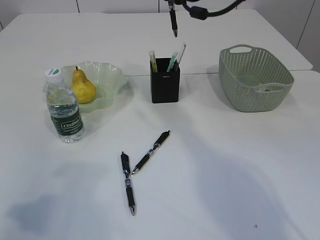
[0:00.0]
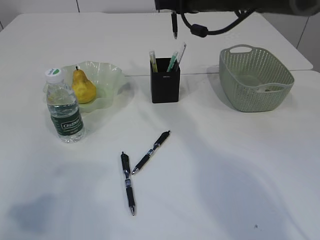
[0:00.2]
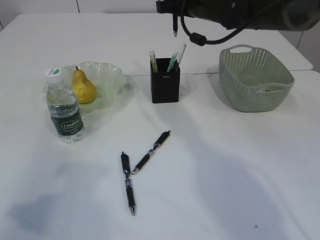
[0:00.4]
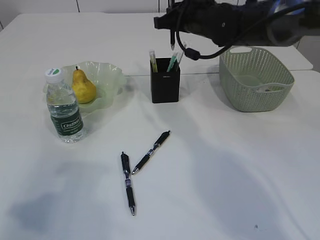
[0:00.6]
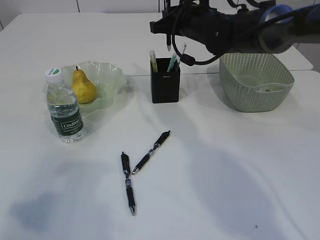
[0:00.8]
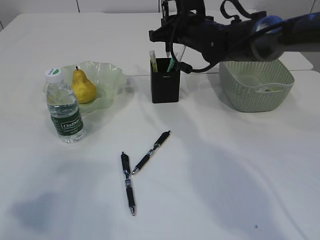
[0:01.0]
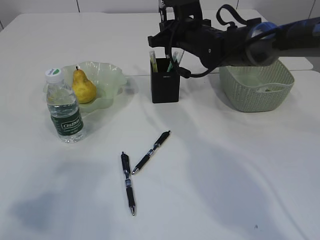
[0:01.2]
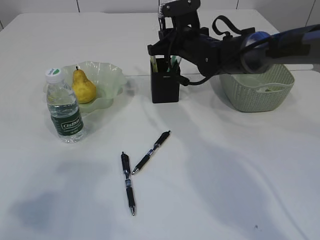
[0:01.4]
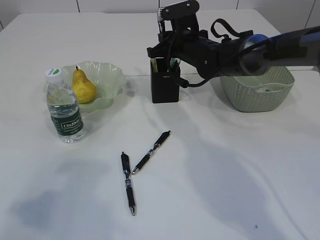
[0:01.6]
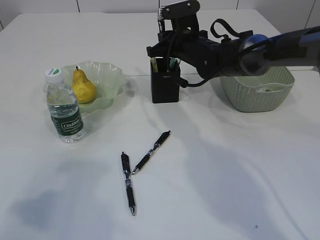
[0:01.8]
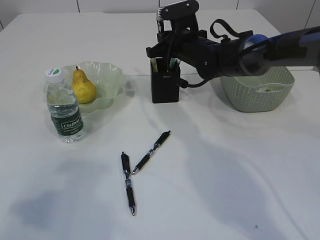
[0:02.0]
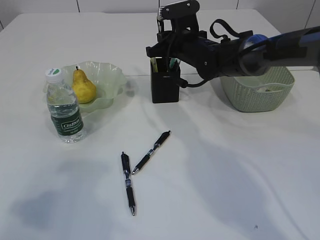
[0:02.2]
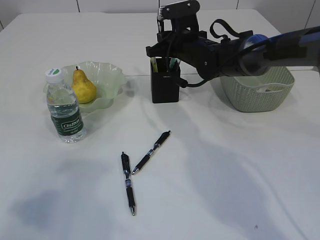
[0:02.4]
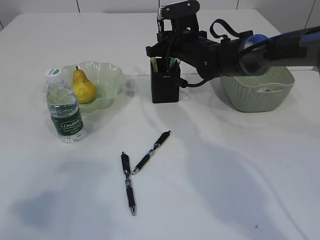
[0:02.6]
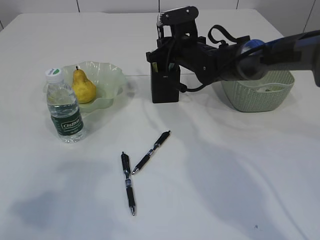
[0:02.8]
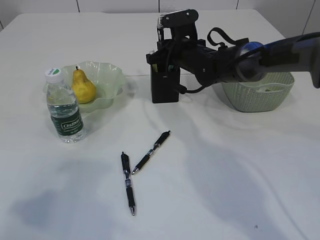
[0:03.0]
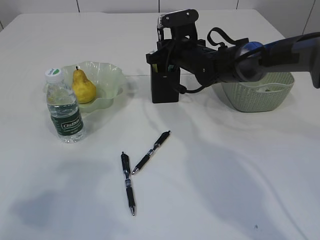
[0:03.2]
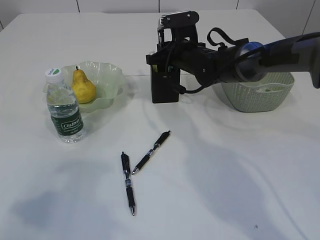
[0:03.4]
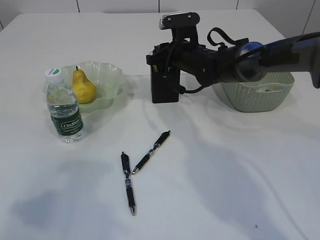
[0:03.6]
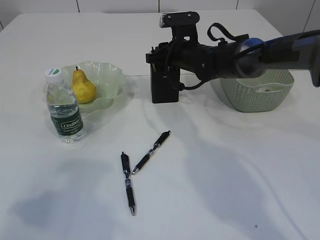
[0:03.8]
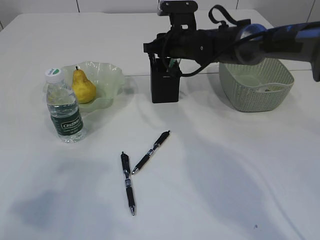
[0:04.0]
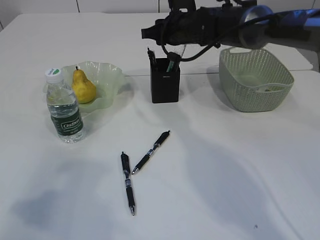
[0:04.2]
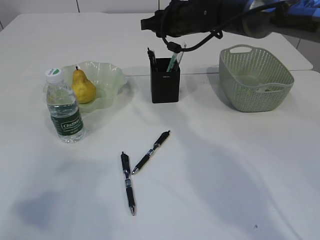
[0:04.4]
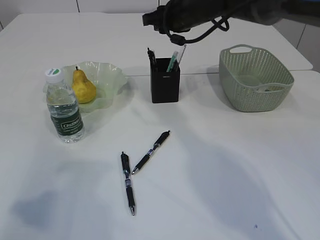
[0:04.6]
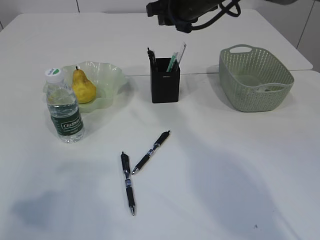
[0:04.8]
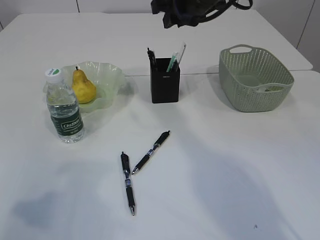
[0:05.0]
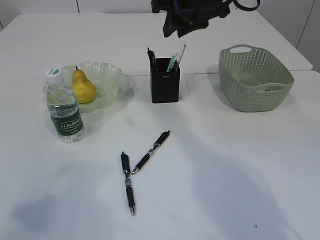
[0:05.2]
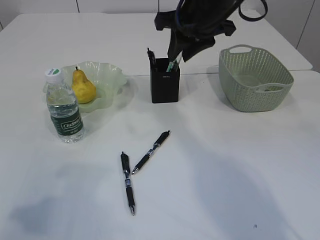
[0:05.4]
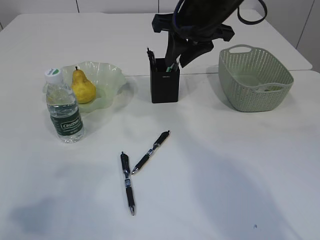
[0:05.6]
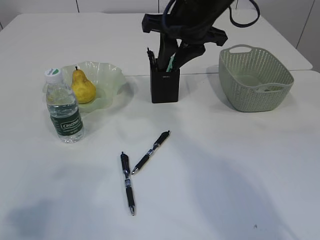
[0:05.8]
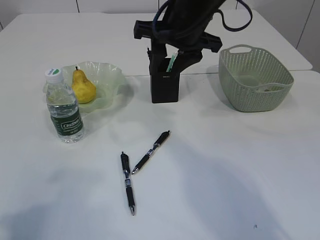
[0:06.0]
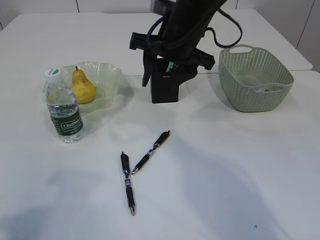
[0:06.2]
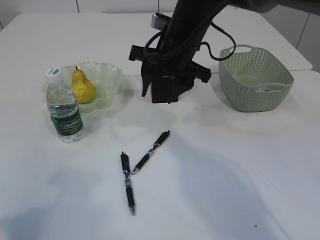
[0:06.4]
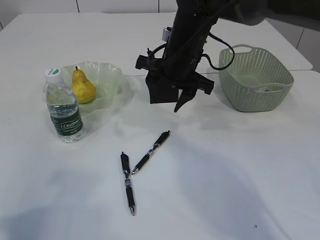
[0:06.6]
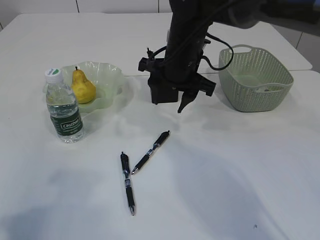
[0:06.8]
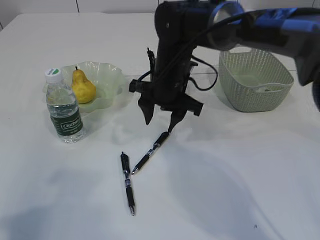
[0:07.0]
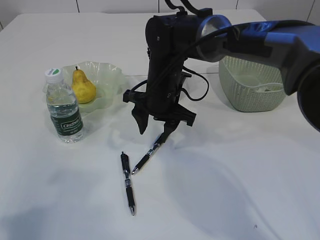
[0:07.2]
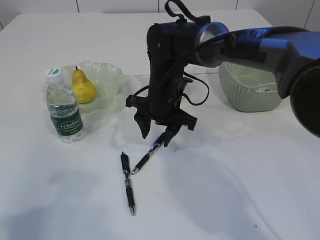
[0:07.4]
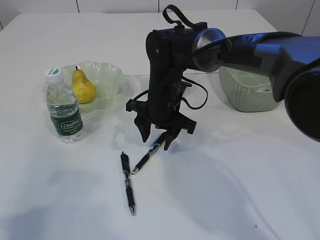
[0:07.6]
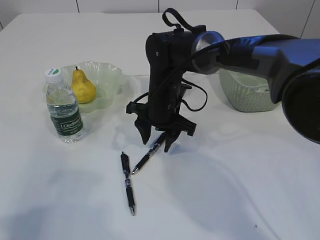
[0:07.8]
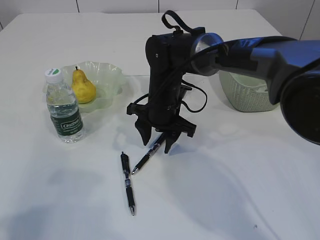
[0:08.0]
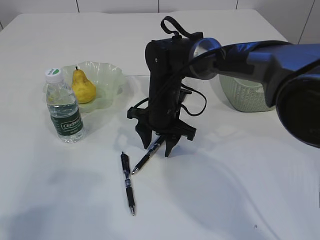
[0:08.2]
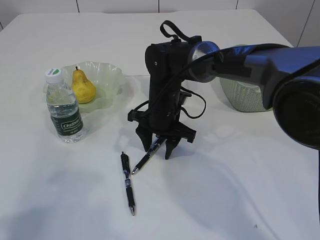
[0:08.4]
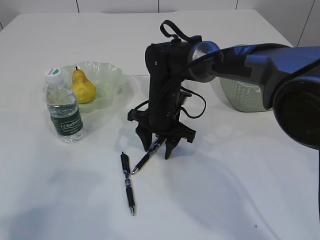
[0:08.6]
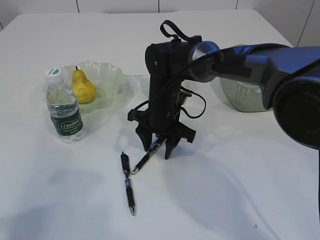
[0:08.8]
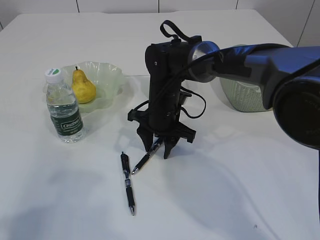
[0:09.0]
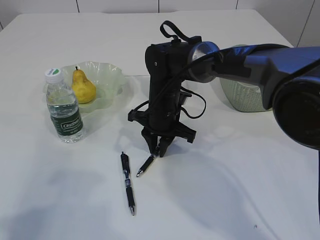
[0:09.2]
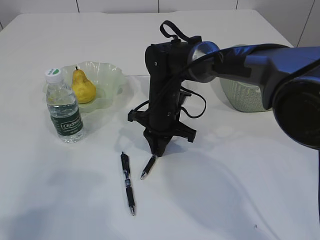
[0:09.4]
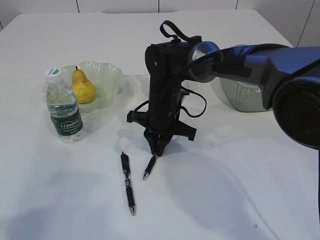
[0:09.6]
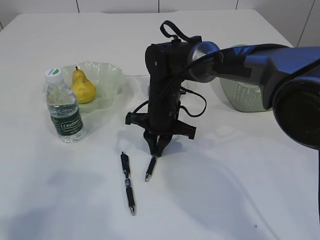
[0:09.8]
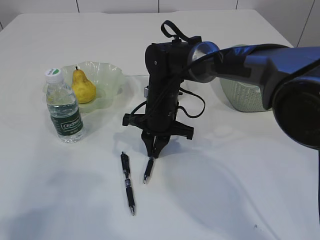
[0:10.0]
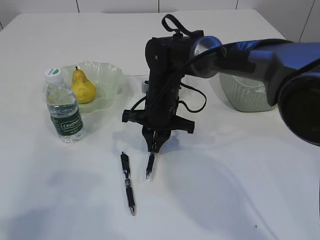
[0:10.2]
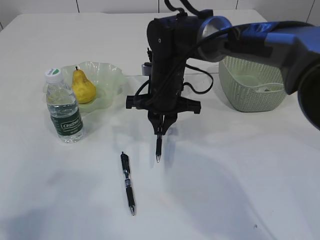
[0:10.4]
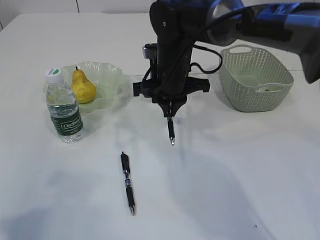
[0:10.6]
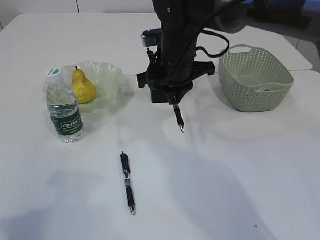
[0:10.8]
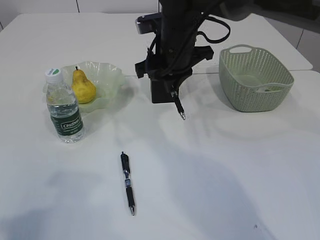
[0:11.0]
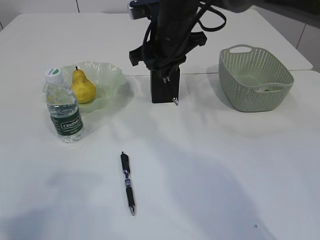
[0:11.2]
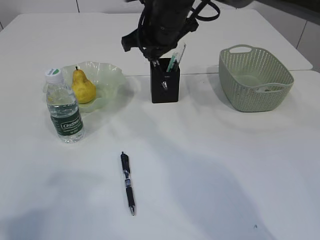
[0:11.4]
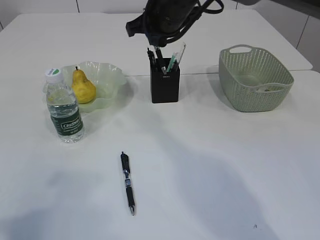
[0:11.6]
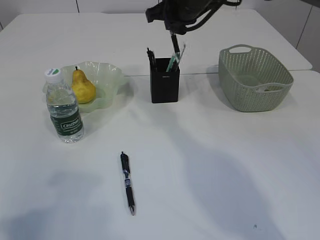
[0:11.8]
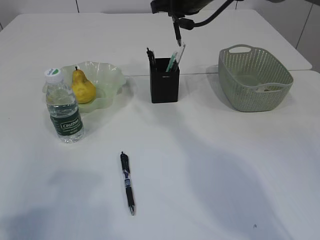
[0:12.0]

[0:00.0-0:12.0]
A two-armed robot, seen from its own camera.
Step, 0:00.0 to 0:04.2: Place the pen into the pen holder.
Step, 0:04.4 to 0:10.6: Pick up the pen with right arm.
0:00.0 to 0:01.6: The right gripper moves downward, roughly 15 cm.
0:01.6 to 0:03.0: The grippers make only small movements.
0:03.0 to 0:04.4: The right gripper shifts roughly 5 cm upward.
0:04.4 to 0:06.0: The right gripper is displaced backward and upward by about 15 cm.
0:06.0 to 0:07.6: The right gripper goes some 15 cm downward.
0:07.6 to 0:09.0: The grippers make only small movements.
0:09.0 to 0:10.4: The right gripper closes up.
0:10.4 to 0:12.0: The right gripper travels upward, forward and to the right by roughly 20 cm.

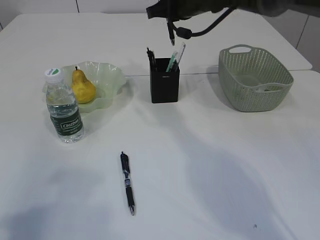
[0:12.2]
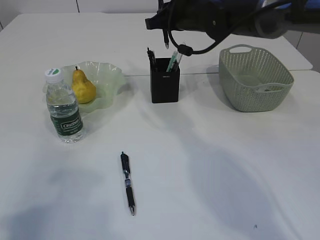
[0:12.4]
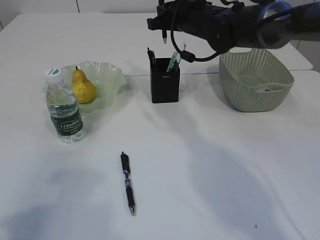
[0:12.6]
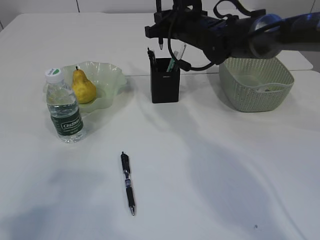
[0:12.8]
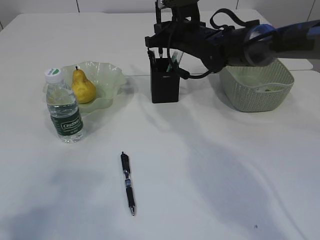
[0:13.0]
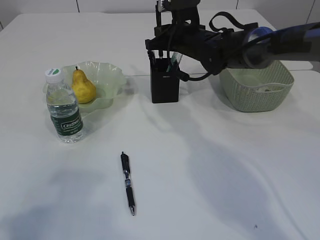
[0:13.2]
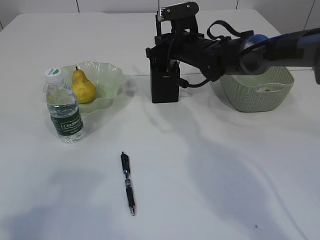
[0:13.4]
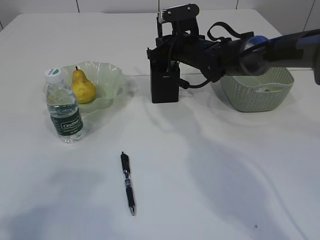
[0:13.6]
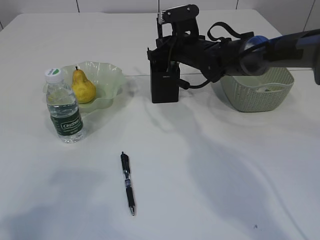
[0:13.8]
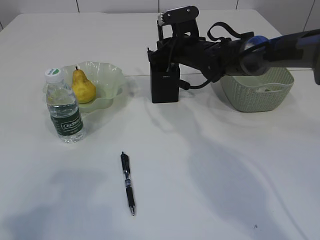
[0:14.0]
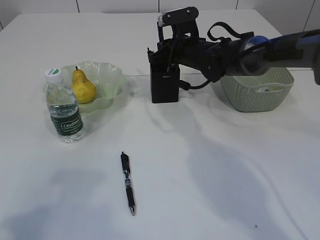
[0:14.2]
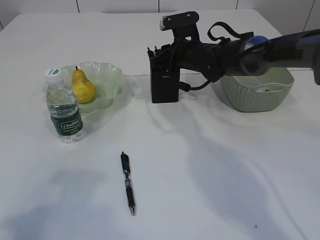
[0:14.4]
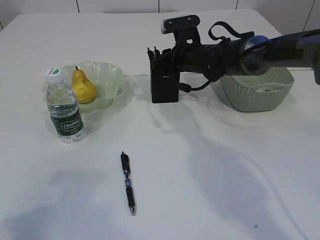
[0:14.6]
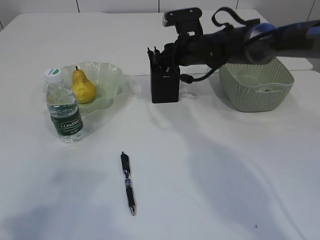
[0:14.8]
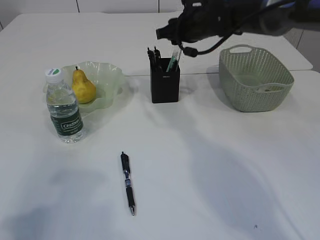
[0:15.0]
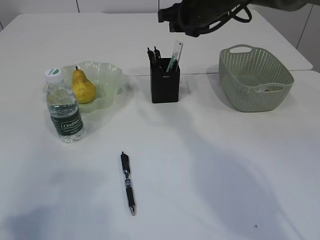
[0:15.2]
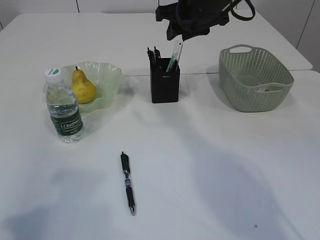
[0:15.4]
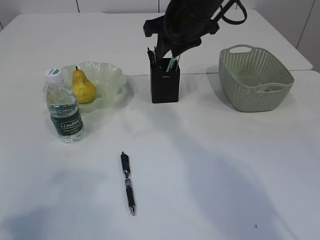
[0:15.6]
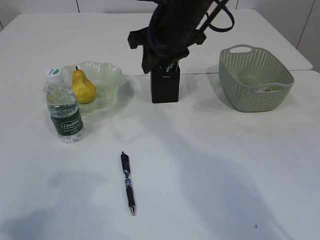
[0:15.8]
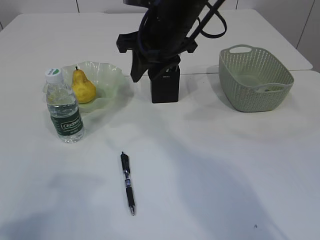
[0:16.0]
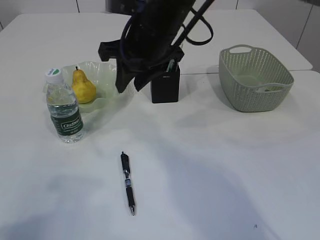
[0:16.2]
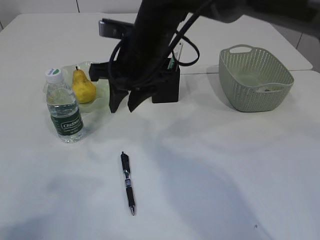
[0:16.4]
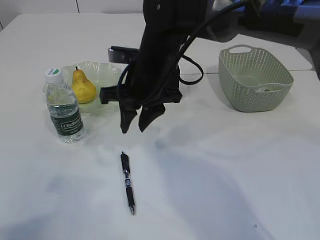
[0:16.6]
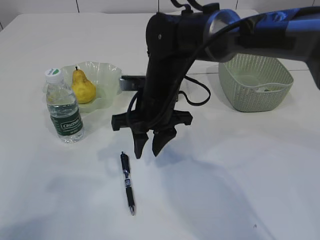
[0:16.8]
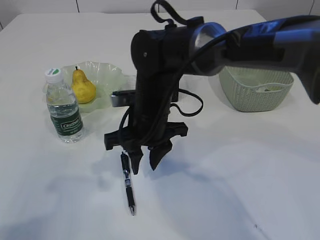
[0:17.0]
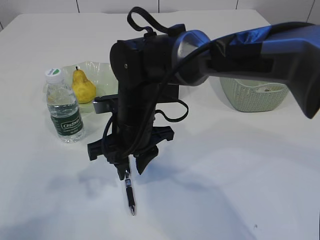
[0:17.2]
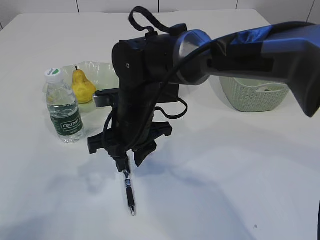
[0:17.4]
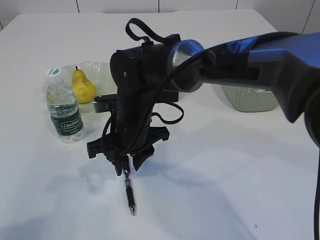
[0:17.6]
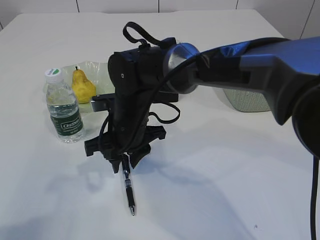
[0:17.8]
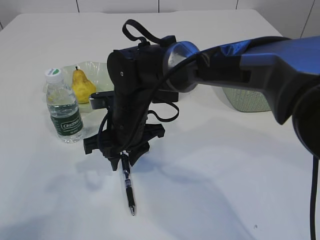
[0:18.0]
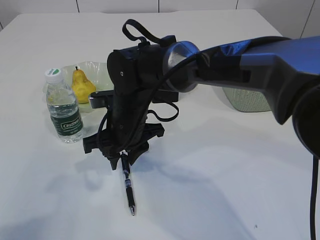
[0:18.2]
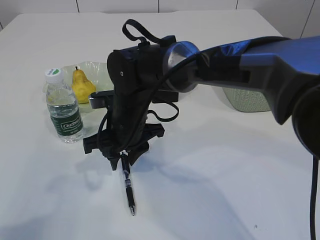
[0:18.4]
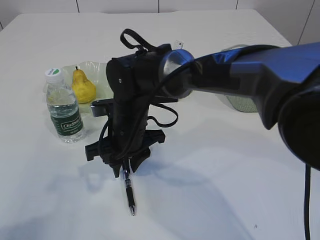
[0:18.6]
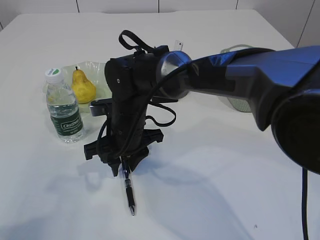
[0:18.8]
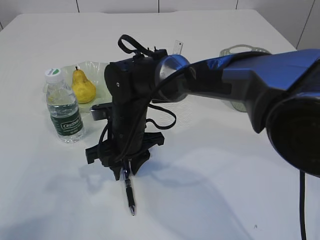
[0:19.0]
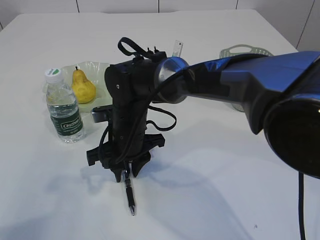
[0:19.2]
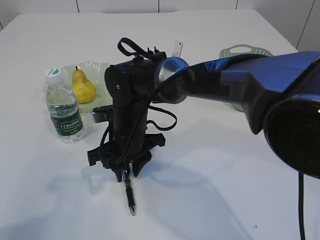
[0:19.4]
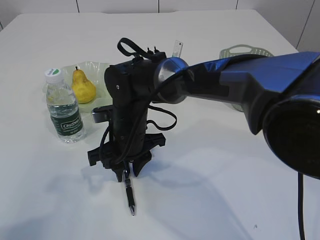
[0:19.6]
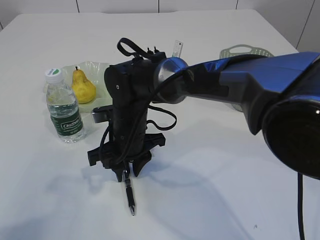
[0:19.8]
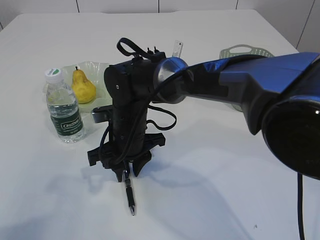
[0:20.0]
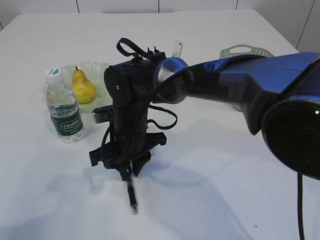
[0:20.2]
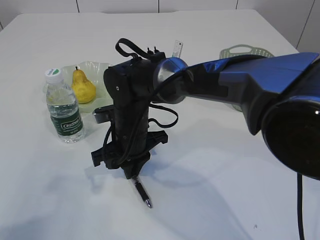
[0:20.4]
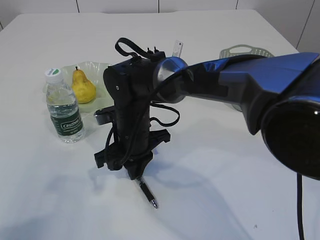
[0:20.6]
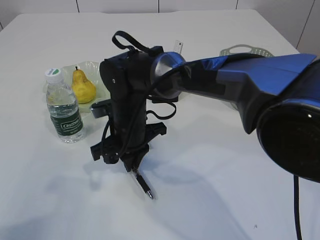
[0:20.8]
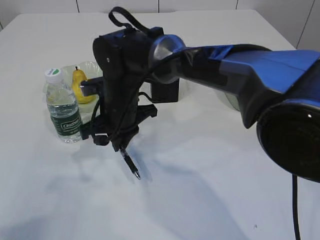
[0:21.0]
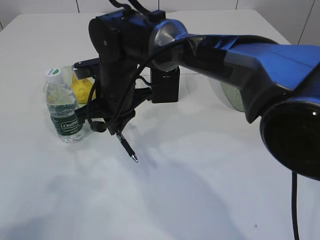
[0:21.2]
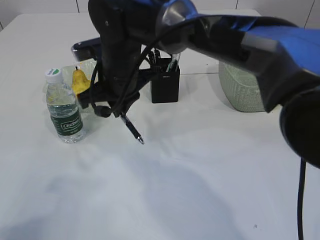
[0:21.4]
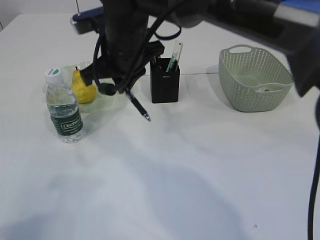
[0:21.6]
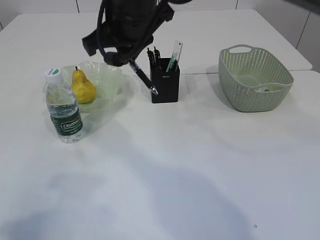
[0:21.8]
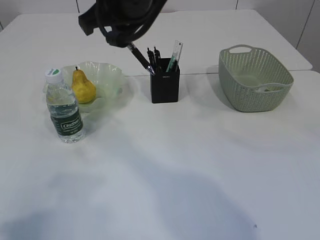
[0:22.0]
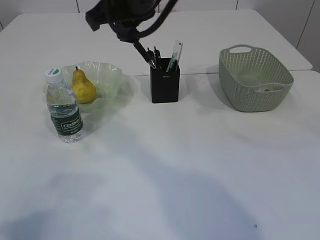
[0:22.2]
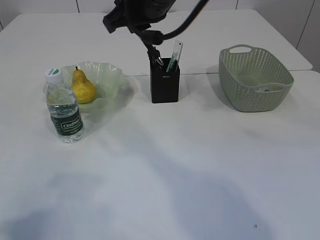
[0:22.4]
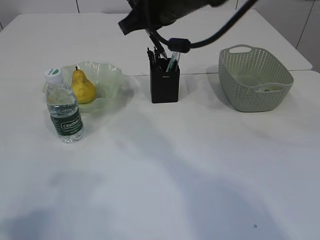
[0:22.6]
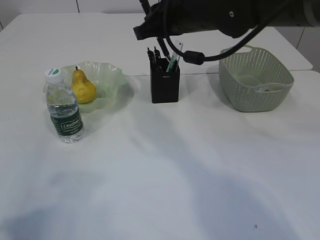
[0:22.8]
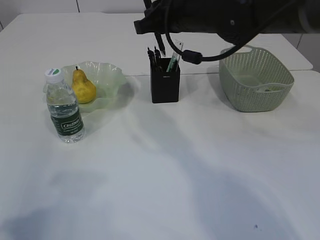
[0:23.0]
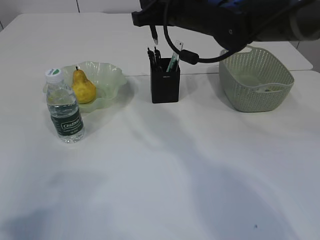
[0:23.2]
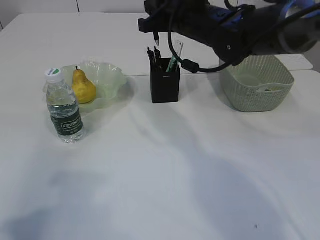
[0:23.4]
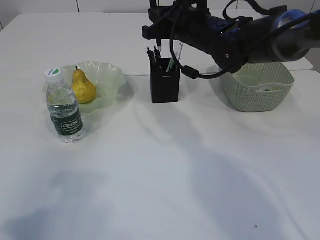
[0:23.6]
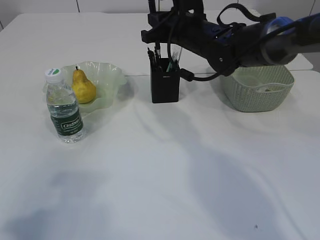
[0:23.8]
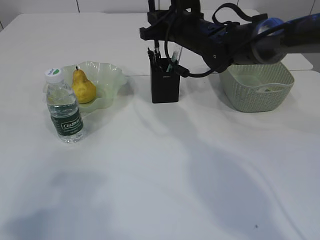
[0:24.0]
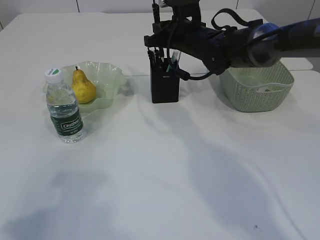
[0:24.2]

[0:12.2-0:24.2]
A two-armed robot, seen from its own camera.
Step, 0:12.2 to 0:14.8: Place the pen into the pen holder.
Step, 0:15.0 to 0:21.2: Pick up the pen with right arm.
0:12.2 to 0:13.8: The right gripper heads downward, covering about 10 cm.
0:13.8 to 0:15.2: The right gripper is displaced upward by some 10 cm, and opens up.
0:15.2 to 0:16.6: The right gripper is displaced to the left, backward and downward by some 15 cm.
0:16.6 to 0:18.2: The right gripper is displaced downward by approximately 5 cm.
0:18.2 to 0:19.8: The grippers make only small movements.
0:19.8 to 0:21.2: The right gripper heads upward, covering roughly 5 cm, and closes its fingers.
0:21.2 to 0:22.6: The right gripper shifts about 15 cm upward and to the right.
0:22.6 to 0:24.2: The right gripper moves downward and forward, approximately 15 cm.
